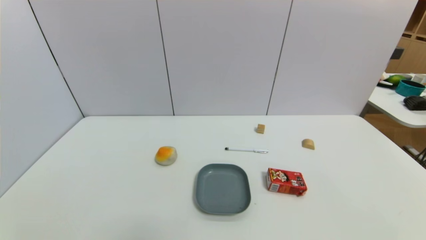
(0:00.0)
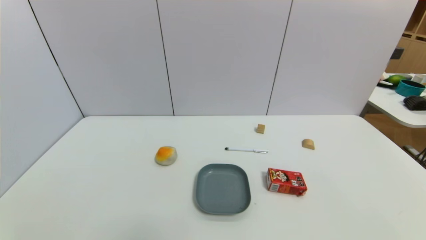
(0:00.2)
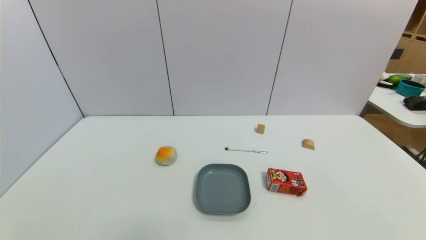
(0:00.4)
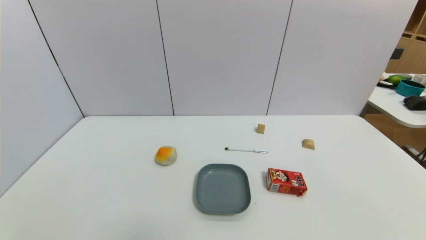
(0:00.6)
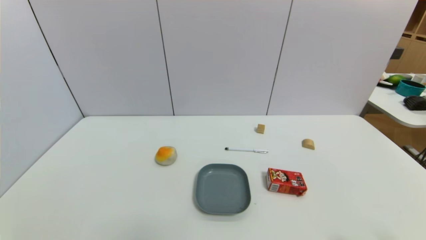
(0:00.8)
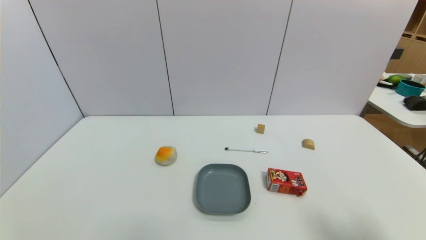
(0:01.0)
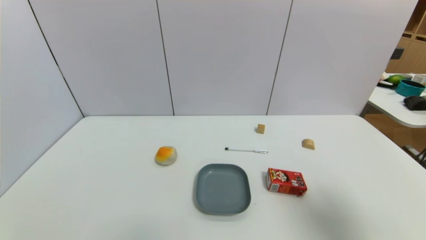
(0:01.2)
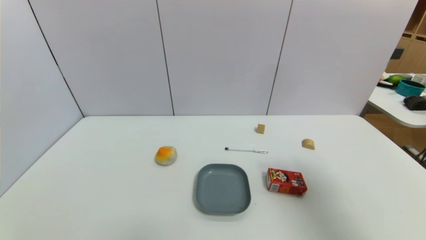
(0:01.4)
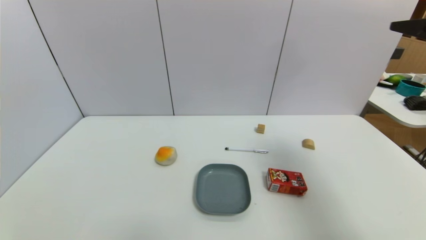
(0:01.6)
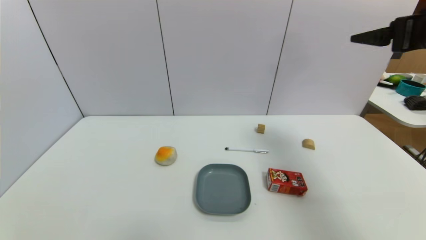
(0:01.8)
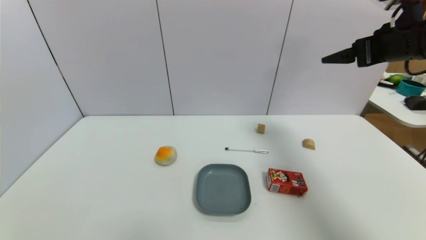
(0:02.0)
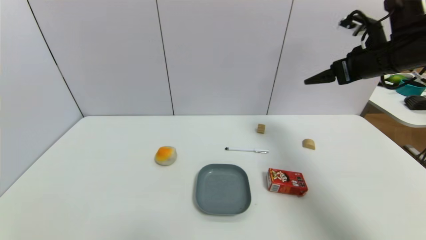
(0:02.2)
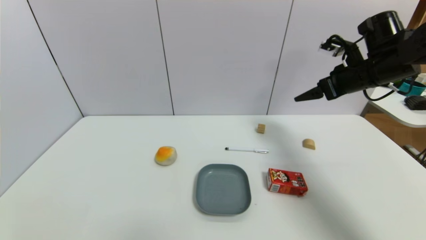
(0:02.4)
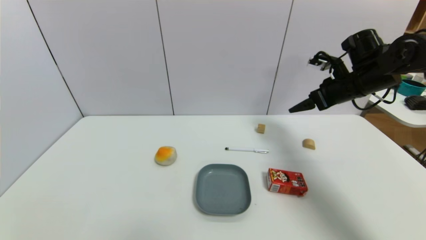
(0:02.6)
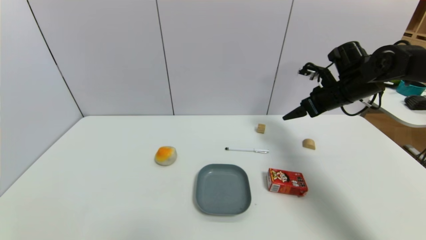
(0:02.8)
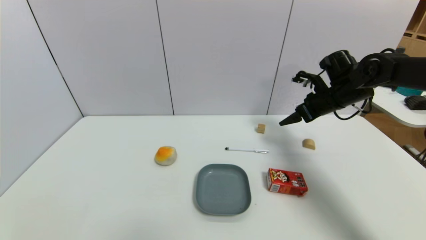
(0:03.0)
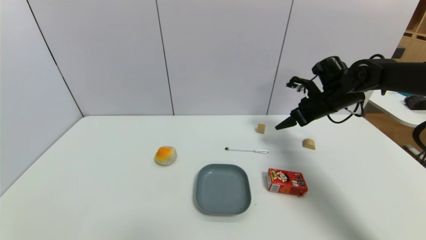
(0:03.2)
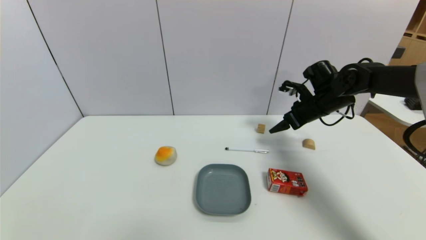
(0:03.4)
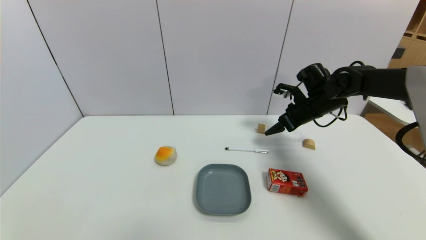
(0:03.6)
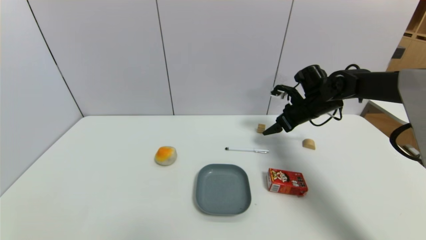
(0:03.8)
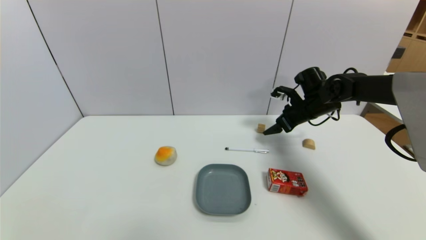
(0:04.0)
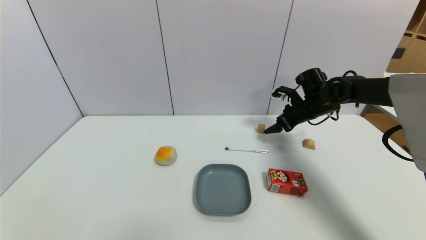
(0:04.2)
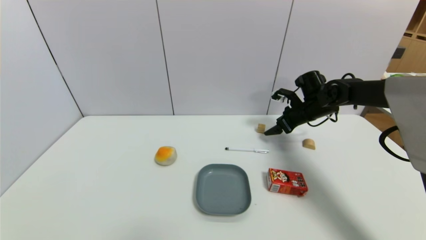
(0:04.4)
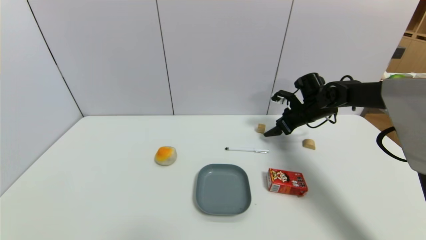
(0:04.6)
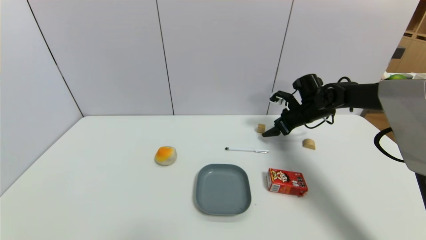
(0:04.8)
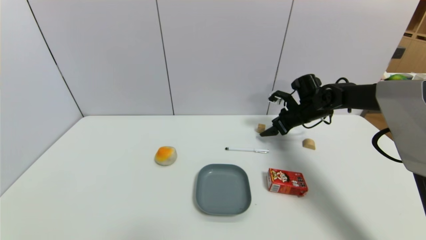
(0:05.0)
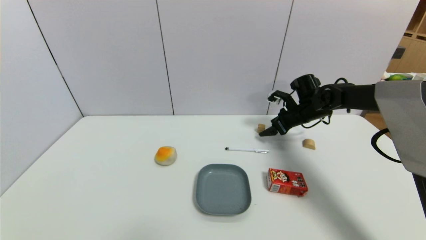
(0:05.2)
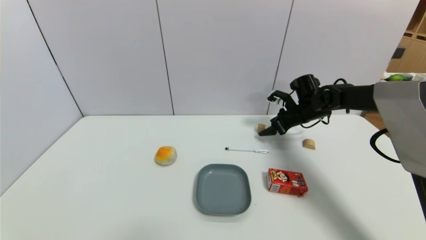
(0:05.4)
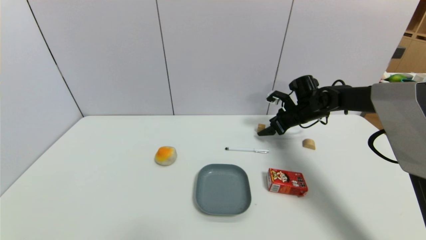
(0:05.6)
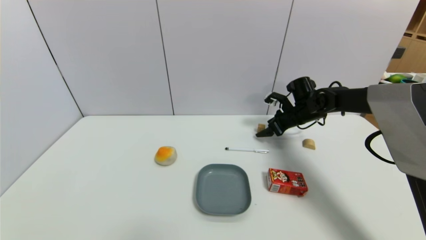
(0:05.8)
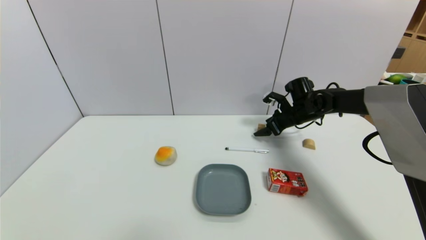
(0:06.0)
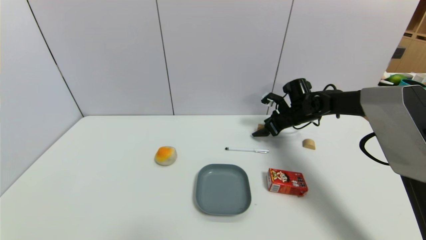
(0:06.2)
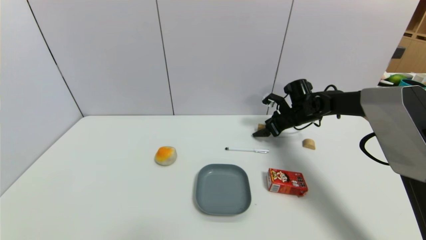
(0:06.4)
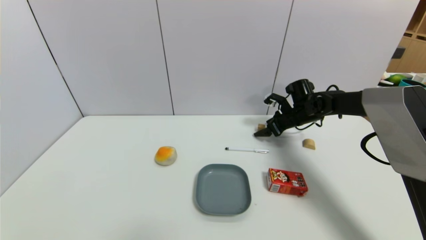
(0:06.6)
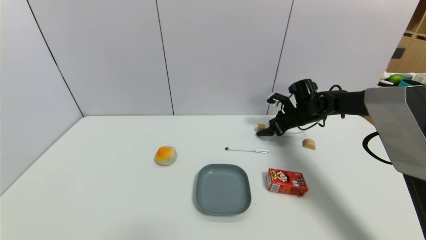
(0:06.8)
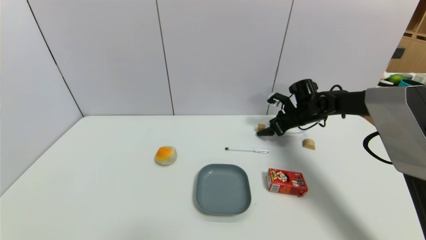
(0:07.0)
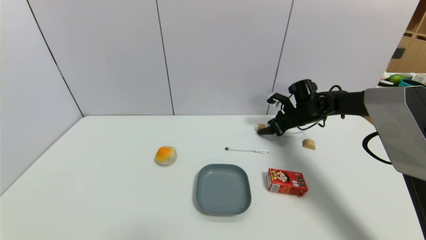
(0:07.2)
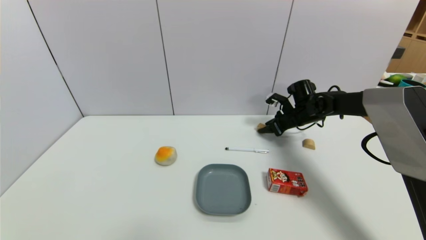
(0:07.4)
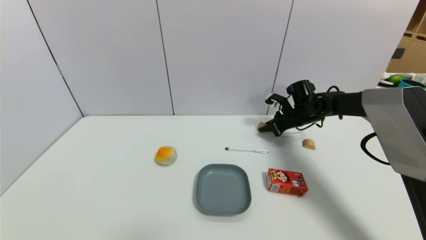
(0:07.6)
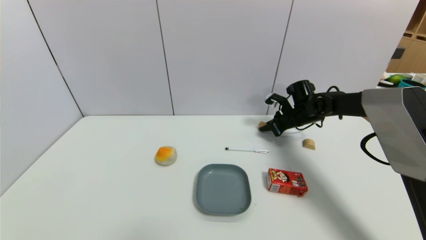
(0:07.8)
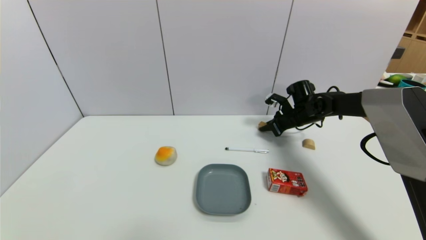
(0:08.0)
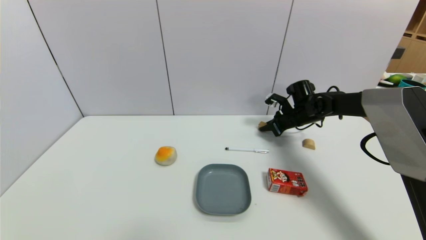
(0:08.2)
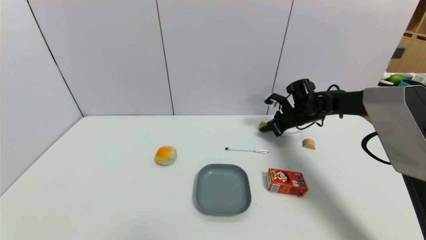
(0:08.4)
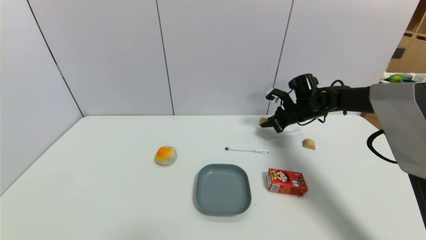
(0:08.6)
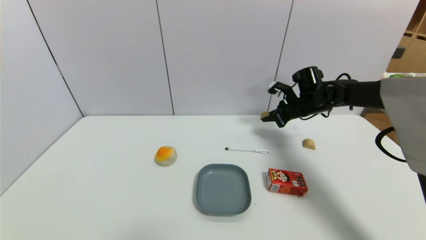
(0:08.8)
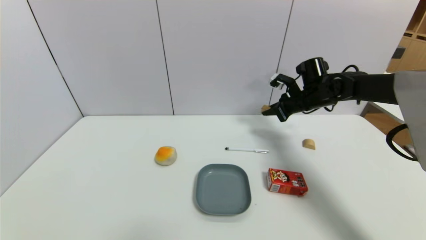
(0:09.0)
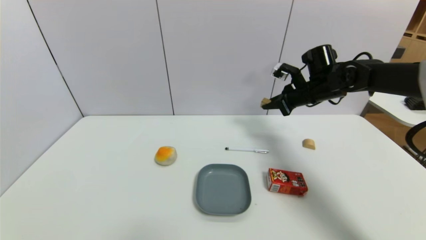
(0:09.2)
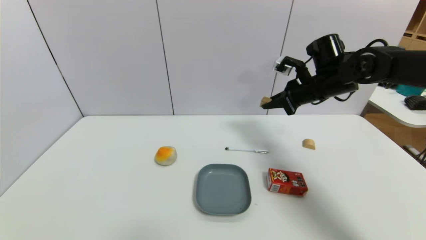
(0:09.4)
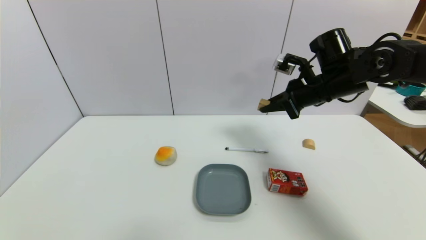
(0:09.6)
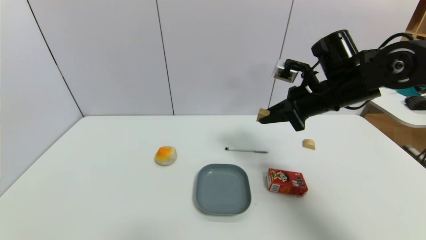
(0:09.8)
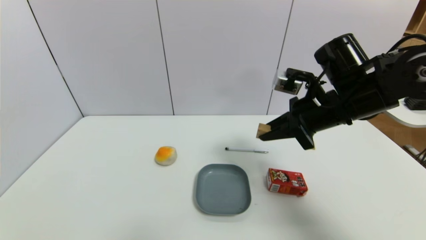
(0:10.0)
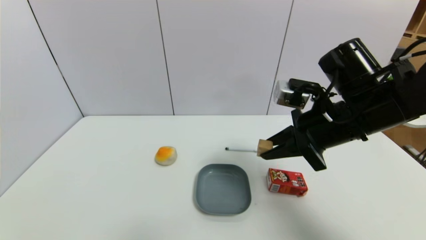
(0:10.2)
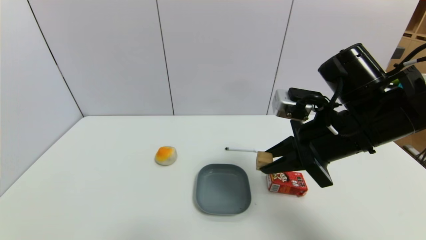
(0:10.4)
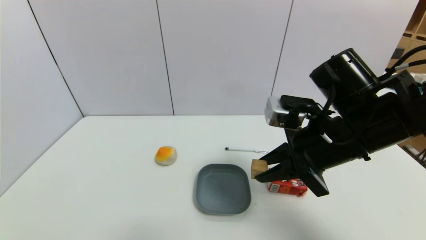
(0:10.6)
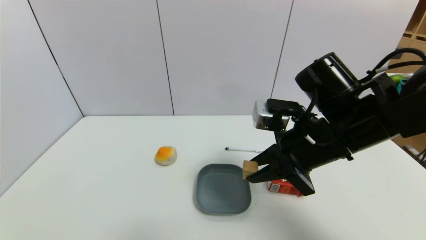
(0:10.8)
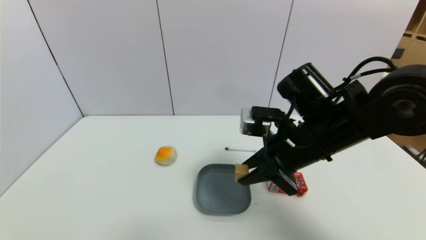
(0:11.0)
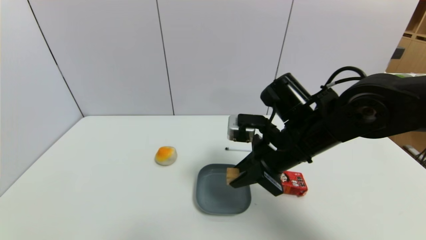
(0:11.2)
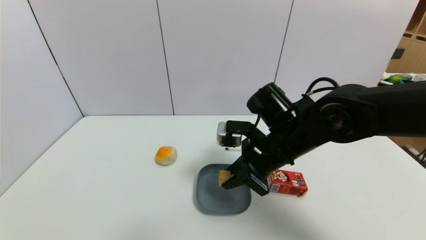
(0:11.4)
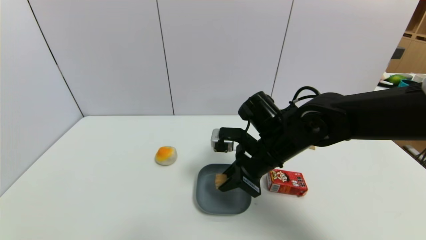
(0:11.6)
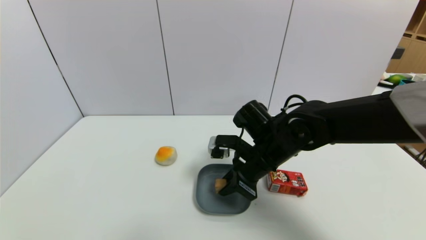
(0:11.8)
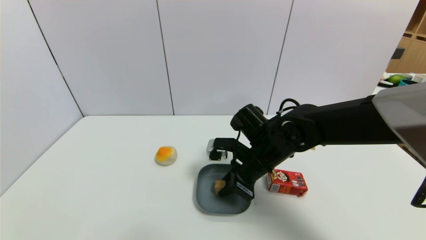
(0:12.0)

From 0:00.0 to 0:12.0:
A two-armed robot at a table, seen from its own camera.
Task of the whole recording: use a gripper to pick the target object and place on the dish.
Step, from 0:00.0 to 0:08.0: Grasp the square wooden block with the right gripper.
From 0:00.0 to 0:01.6: The right gripper heads upward and forward, covering approximately 35 cm.
From 0:01.6 to 0:03.0: The right gripper is displaced forward and downward by some 30 cm.
From 0:03.0 to 0:04.4: The right gripper heads downward, covering approximately 5 cm.
From 0:04.4 to 0:06.0: There are only small adjustments of the grippers.
From 0:06.0 to 0:07.6: The right gripper closes.
From 0:07.6 to 0:09.0: The right gripper heads upward, covering approximately 10 cm.
From 0:09.0 to 0:10.4: The right gripper is displaced backward by about 20 cm.
From 0:10.4 to 0:12.0: The right gripper heads downward, to the left and forward, covering approximately 15 cm.

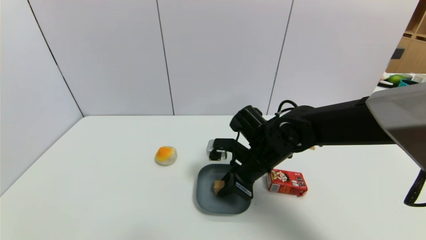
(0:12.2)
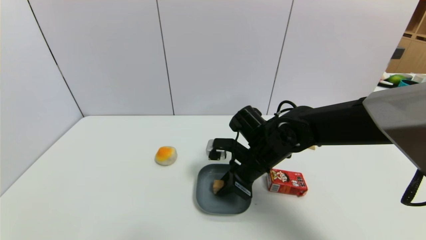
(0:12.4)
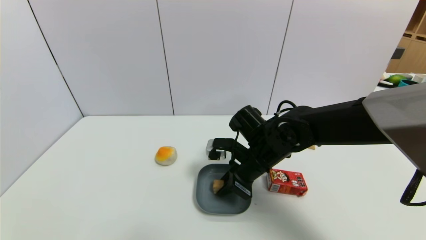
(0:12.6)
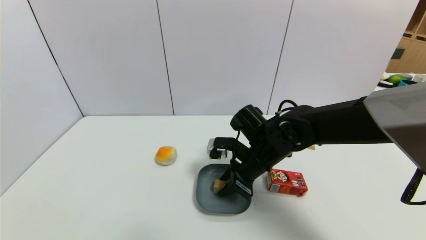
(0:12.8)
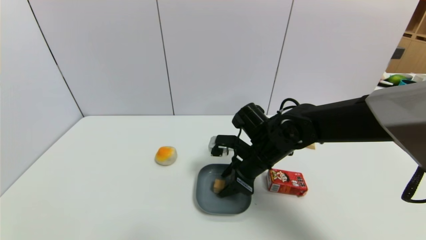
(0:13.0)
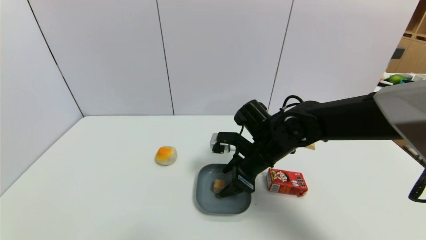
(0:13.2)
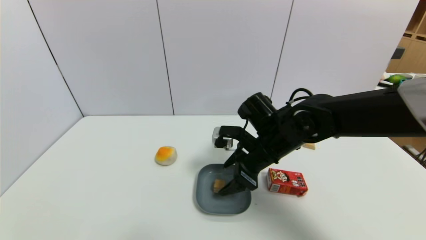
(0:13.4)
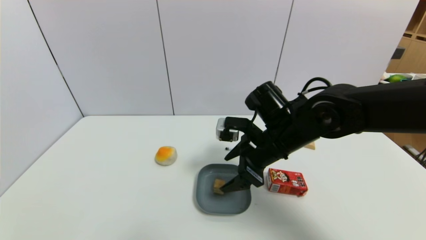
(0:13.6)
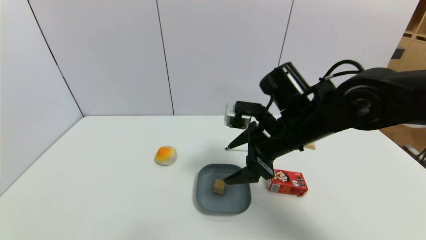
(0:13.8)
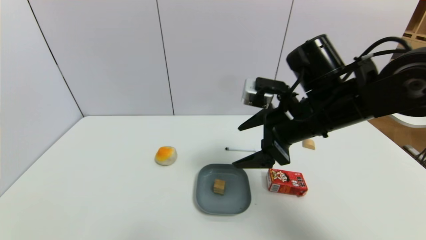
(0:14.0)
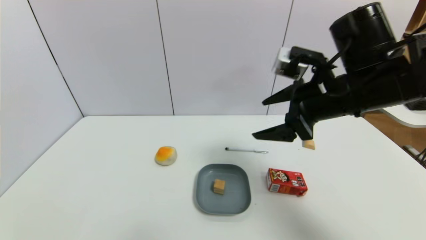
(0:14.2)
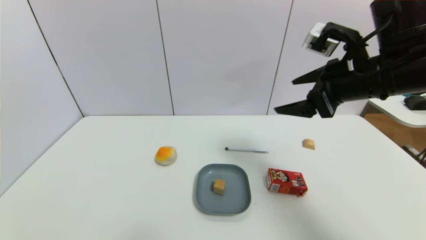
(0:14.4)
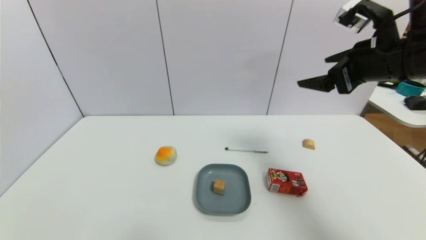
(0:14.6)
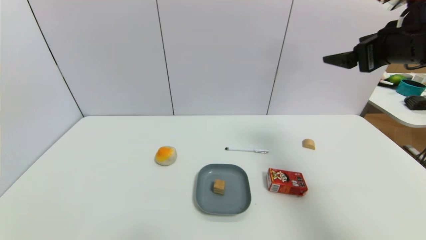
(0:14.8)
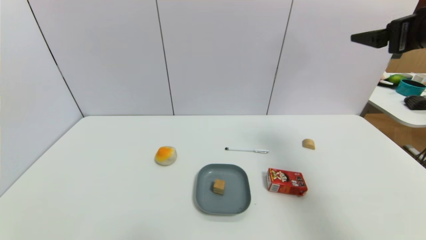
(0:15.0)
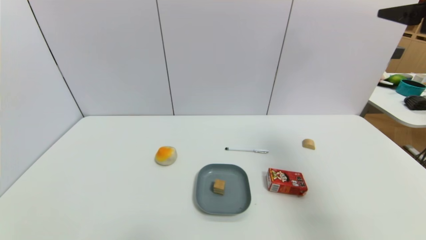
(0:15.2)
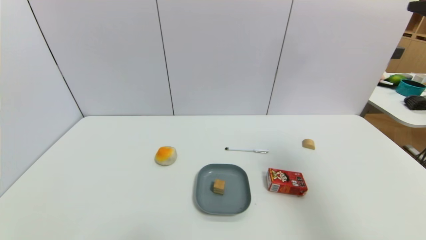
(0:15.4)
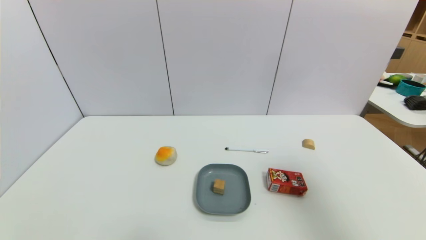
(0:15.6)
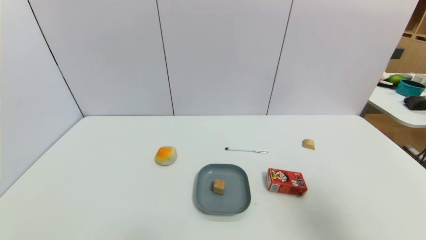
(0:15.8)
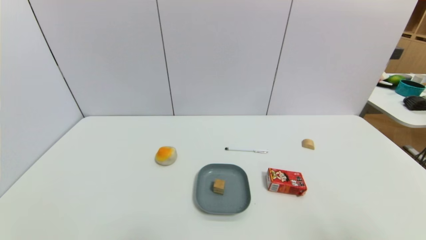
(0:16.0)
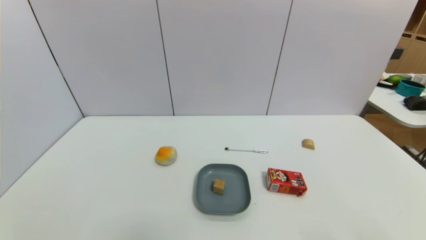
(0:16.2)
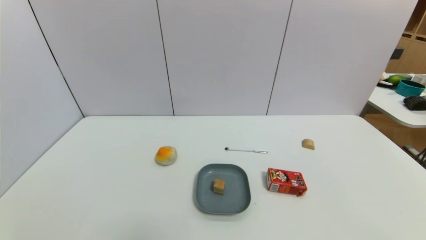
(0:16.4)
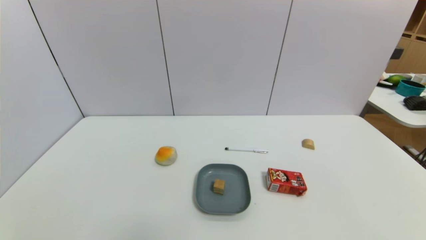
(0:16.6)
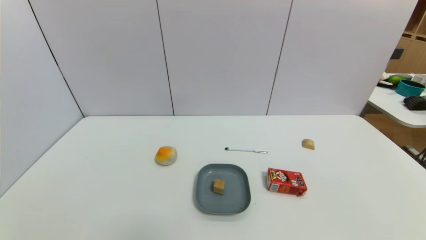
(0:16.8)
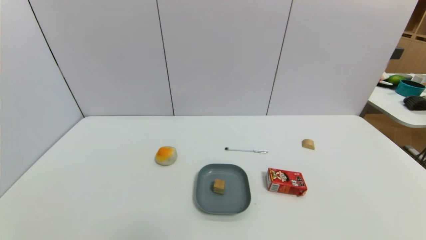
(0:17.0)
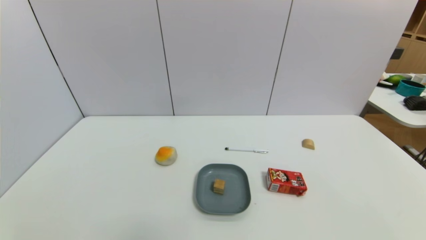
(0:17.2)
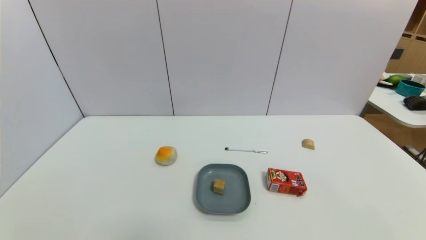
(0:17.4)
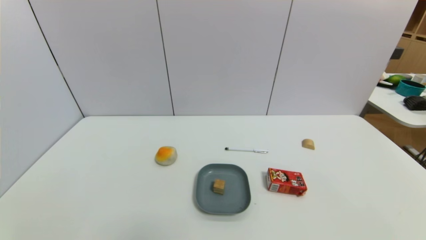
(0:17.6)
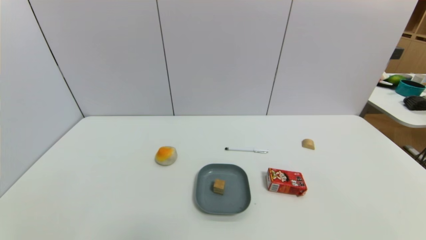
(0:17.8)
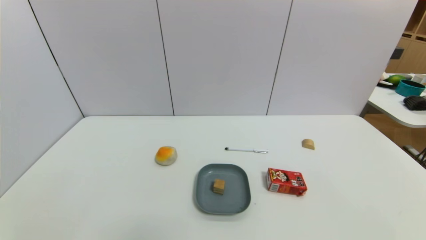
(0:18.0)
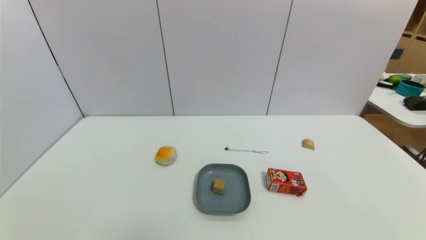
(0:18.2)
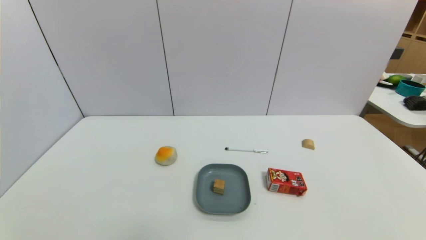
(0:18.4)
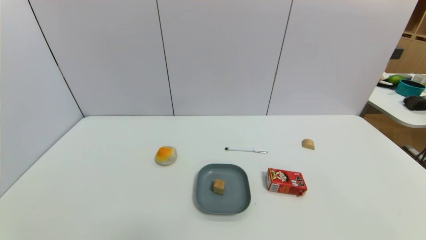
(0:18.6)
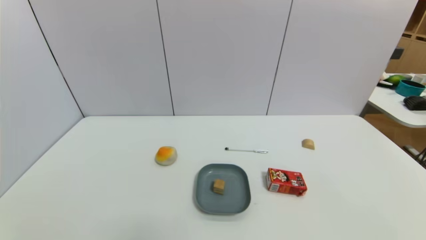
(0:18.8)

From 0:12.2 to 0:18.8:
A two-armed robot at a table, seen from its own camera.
Task of the whole recording: use a gripper to pick the target object and place on the dish.
From 0:12.2 to 0:13.8: The right gripper moves upward, about 10 cm, and opens its fingers.
From 0:13.8 to 0:15.4: The right gripper shifts some 30 cm to the right, upward and backward.
From 0:15.4 to 0:17.2: The right gripper moves downward and backward, some 35 cm.
From 0:17.2 to 0:18.8: Both grippers stay about where they are.
